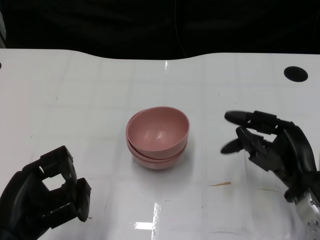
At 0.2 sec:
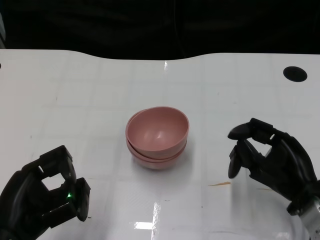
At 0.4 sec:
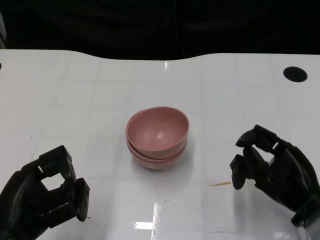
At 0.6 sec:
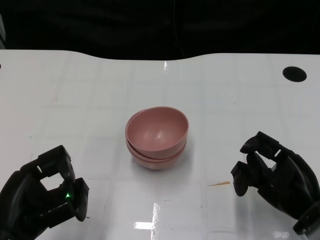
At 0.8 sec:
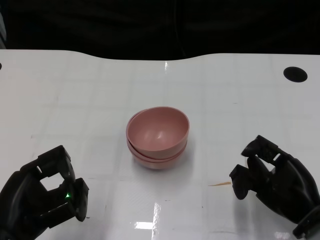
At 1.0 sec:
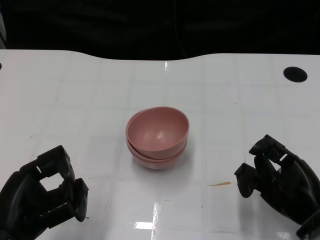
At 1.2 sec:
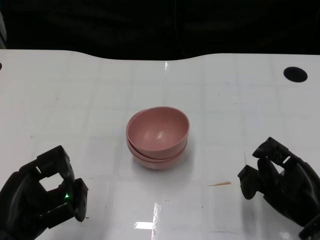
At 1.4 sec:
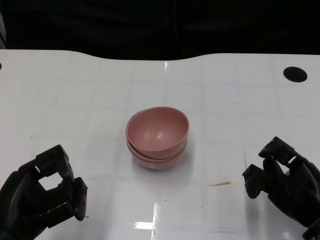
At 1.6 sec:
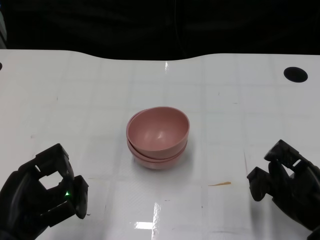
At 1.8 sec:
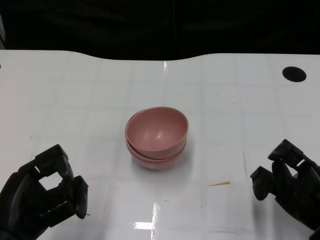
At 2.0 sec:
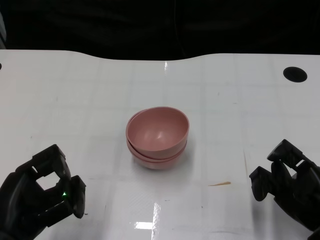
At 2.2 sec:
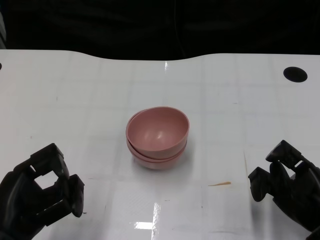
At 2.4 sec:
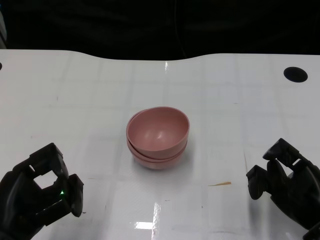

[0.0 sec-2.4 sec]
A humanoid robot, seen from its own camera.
Task of the whole recording: Pick up the bowl on one side of the table and place it on top of the middle bowl, then pick up the bowl on the other side of the table and place it on top of the middle bowls.
0.0 sec to 1.2 sec: The right hand moves approximately 5 cm.
1.2 sec to 2.4 sec: The hands move only a little.
